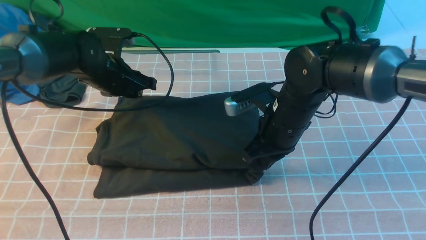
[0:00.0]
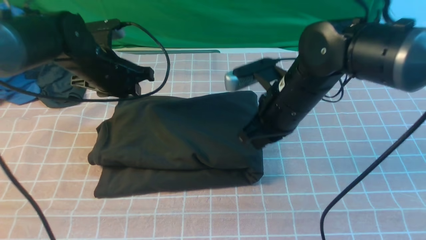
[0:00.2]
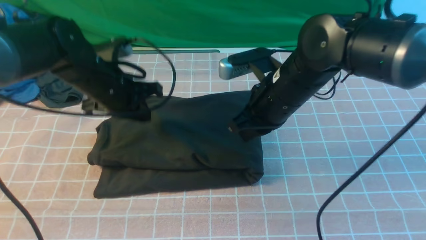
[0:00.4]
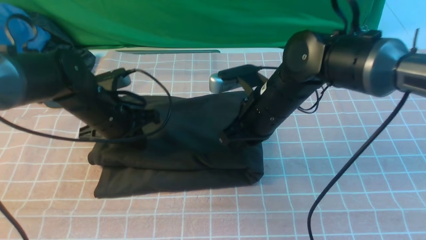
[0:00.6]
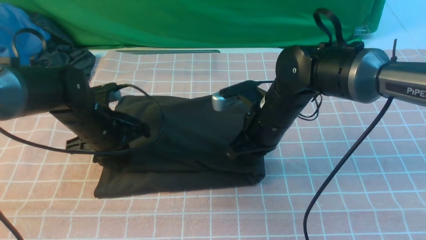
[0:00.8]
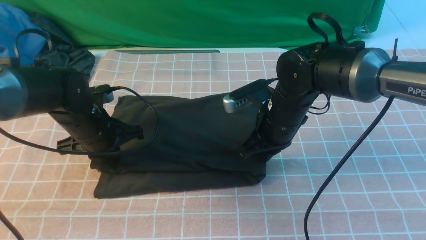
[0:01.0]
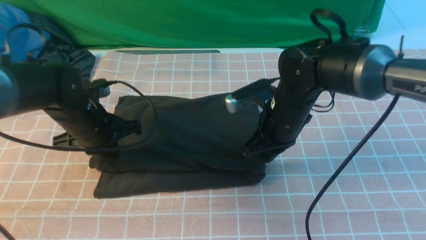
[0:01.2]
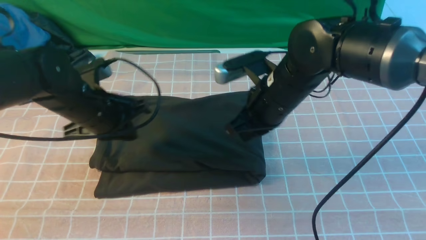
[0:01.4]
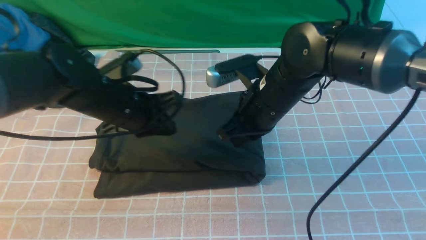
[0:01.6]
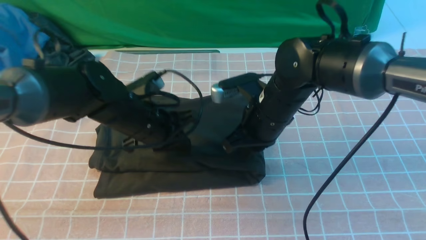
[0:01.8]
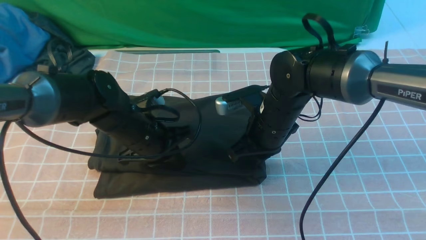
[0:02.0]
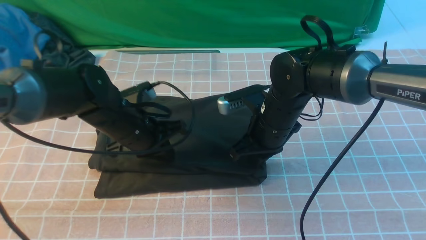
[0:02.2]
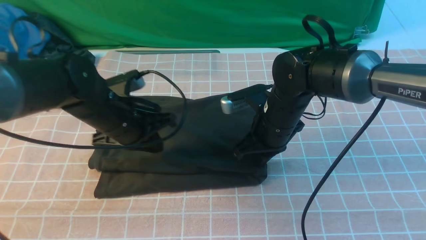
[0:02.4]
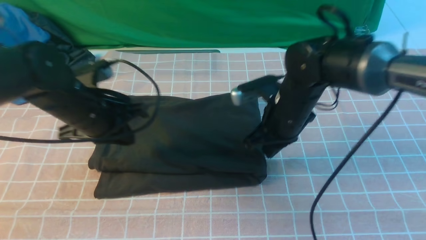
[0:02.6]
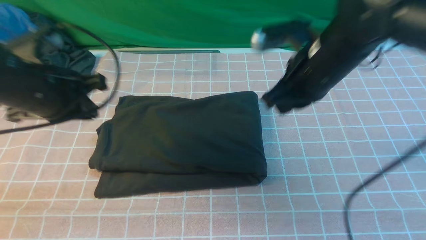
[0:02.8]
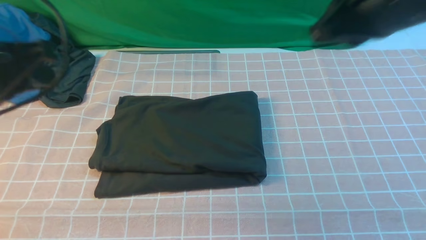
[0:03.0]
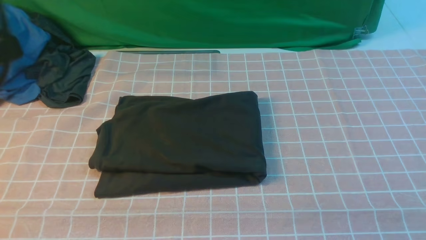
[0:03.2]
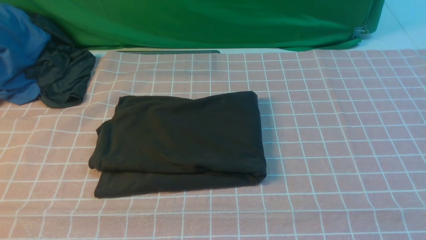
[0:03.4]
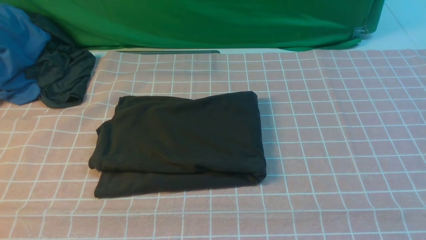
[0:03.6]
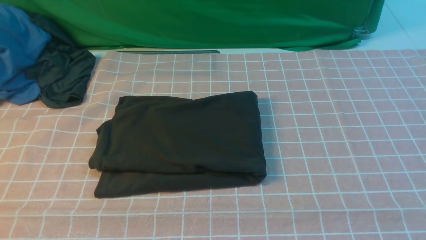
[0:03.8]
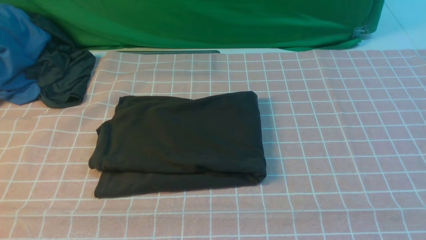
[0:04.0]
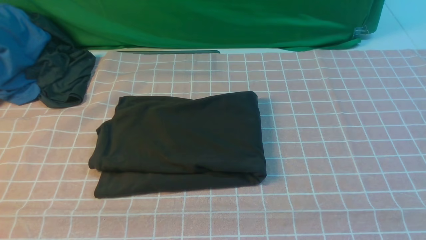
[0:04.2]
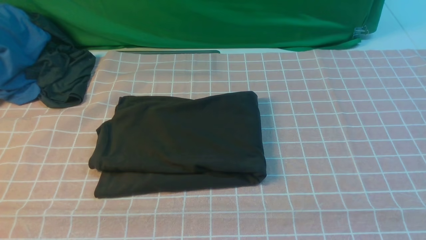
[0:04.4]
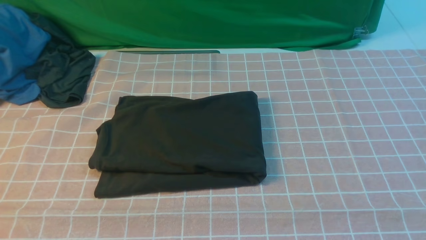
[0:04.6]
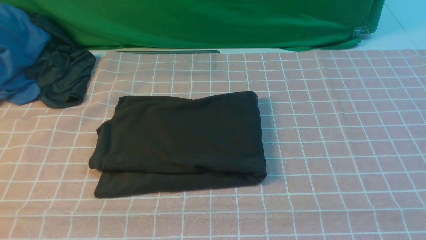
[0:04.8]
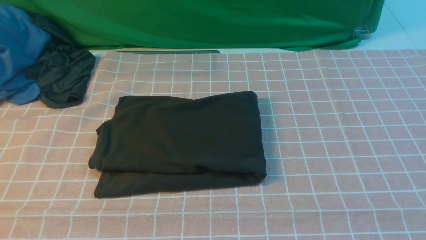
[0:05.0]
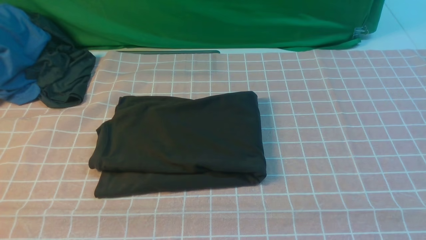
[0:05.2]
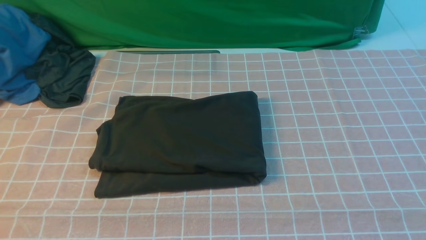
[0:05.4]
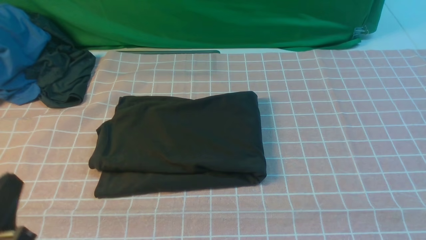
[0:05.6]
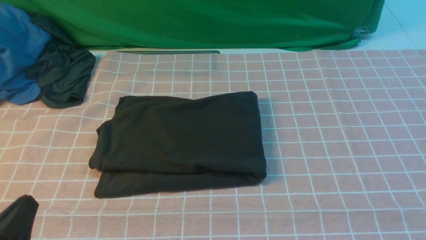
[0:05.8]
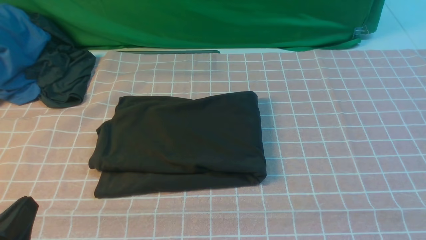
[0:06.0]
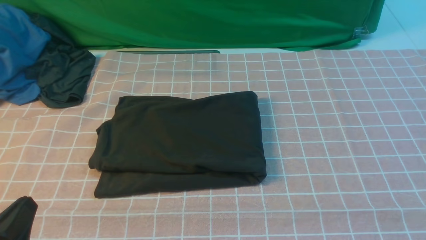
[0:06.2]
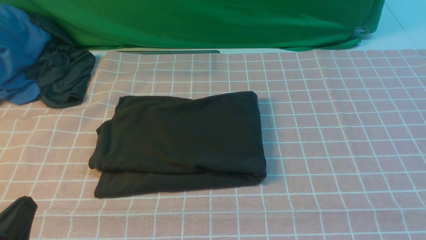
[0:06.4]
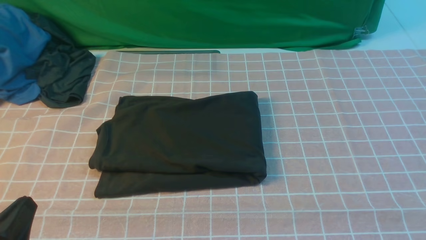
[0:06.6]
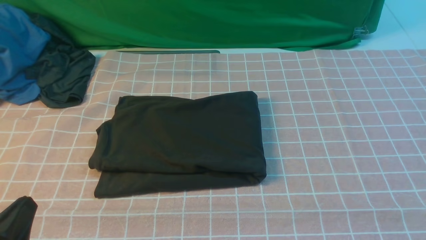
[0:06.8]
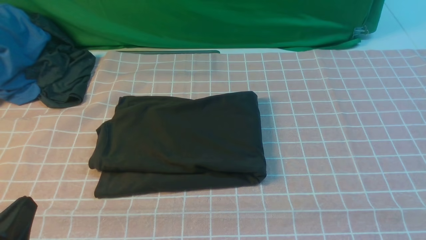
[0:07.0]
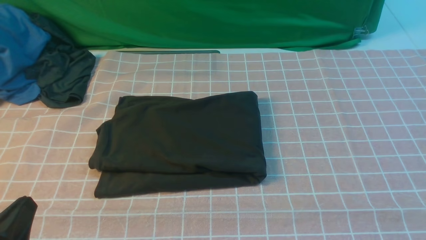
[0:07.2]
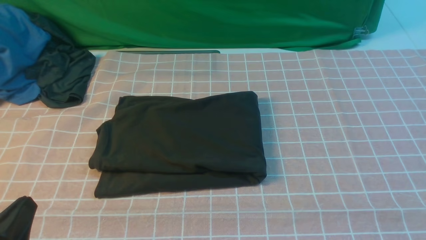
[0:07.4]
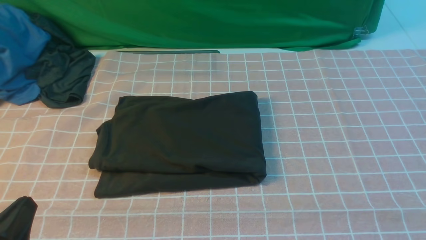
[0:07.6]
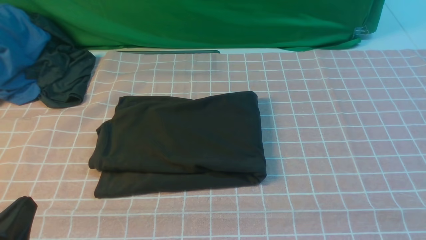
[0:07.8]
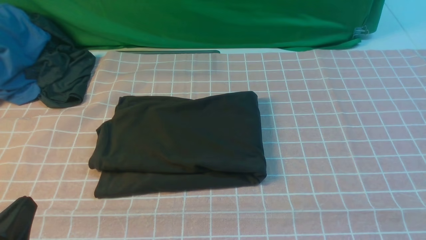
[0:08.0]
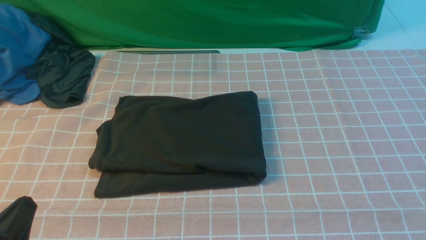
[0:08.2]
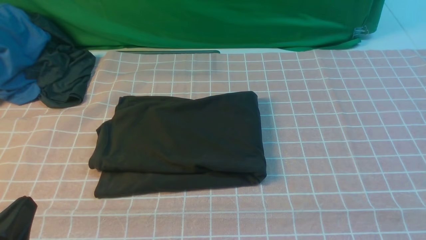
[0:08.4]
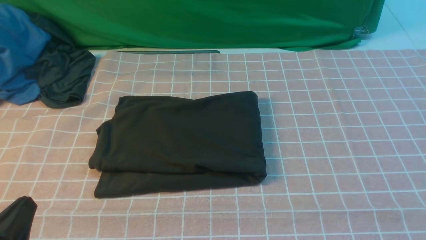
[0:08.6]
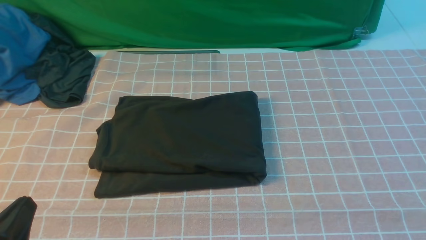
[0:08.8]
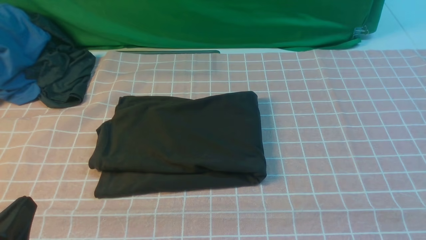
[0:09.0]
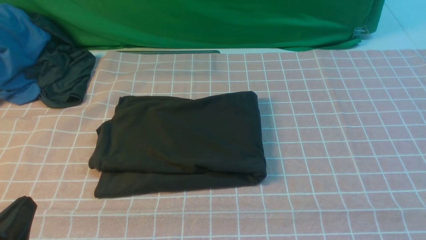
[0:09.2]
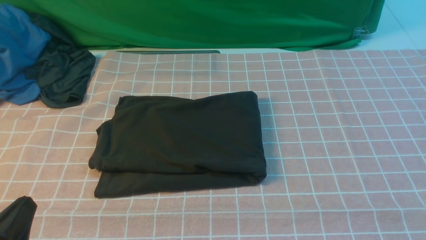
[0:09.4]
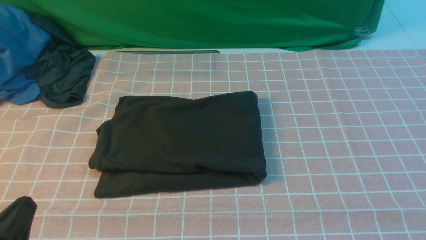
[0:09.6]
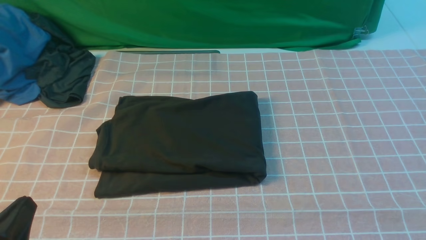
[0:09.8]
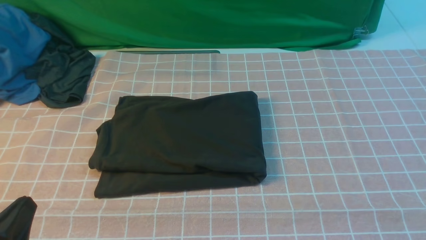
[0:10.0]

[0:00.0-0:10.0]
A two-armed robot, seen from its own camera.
0:00.0 to 0:01.4: The left gripper travels backward by approximately 10 cm, and closes up.
0:01.4 to 0:02.8: The left gripper moves upward, backward and to the left, approximately 15 cm. The right gripper goes roughly 10 cm upward and to the right.
0:02.8 to 0:04.2: The left gripper moves backward, roughly 25 cm. Meanwhile the right gripper heads backward and to the right, covering roughly 35 cm.
0:04.2 to 0:05.8: The left gripper shifts about 15 cm downward.
0:08.6 to 0:10.0: Both grippers stay put.
